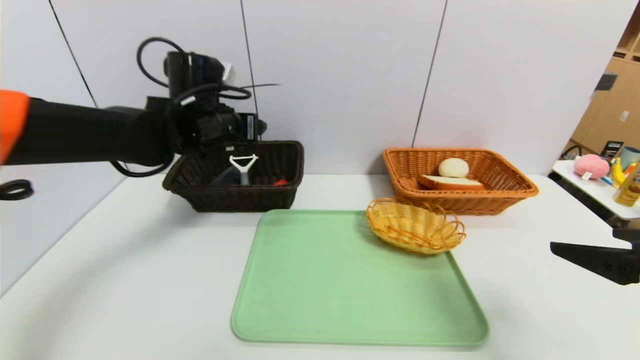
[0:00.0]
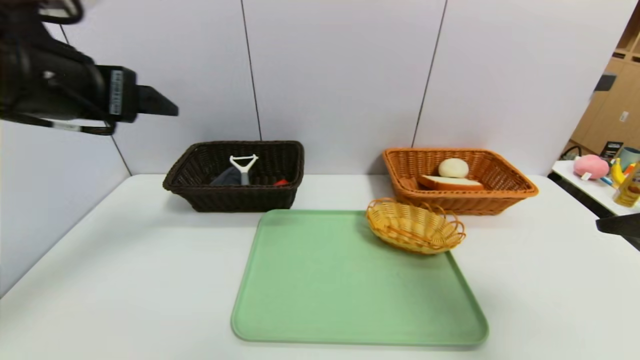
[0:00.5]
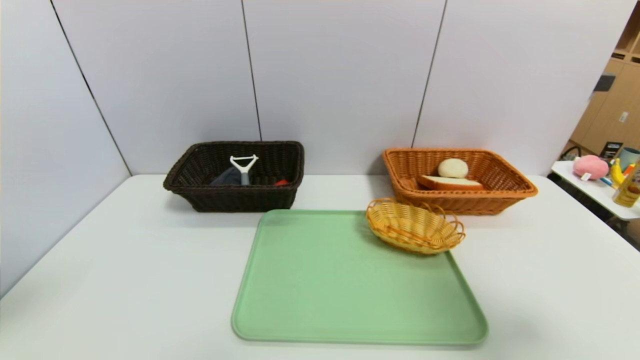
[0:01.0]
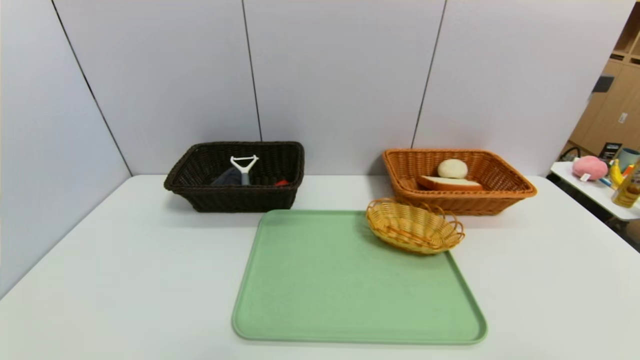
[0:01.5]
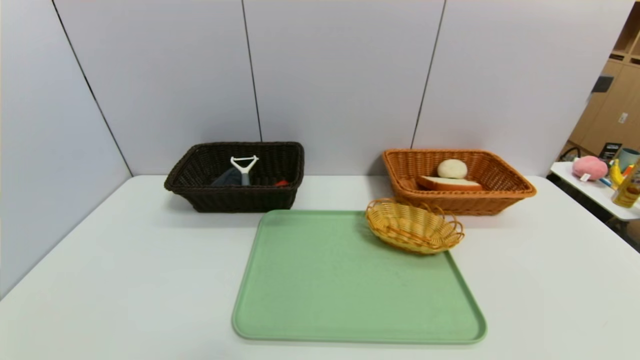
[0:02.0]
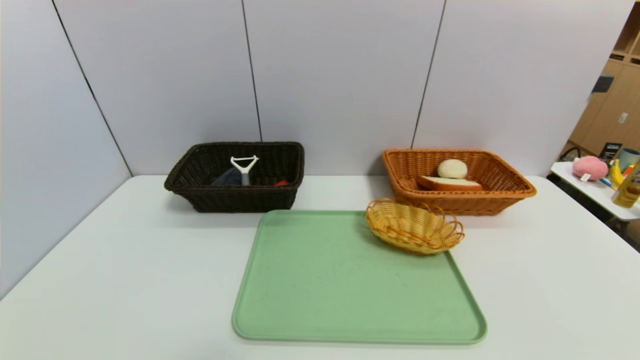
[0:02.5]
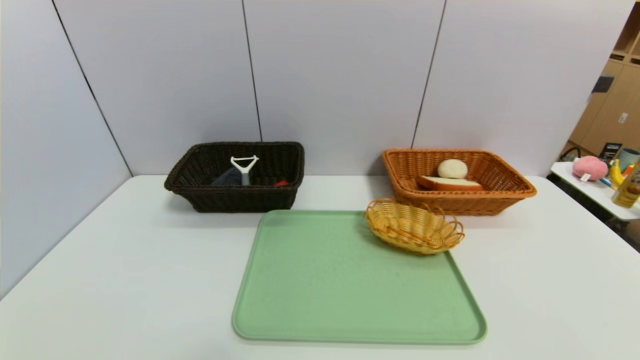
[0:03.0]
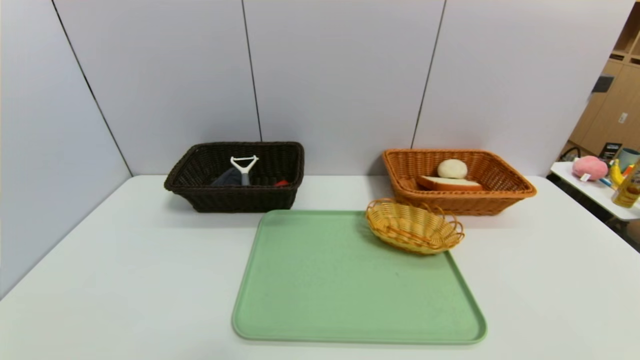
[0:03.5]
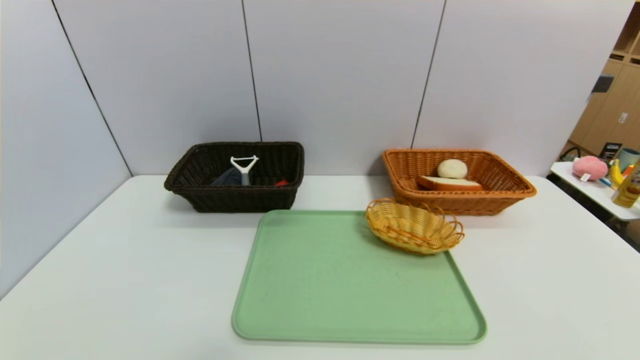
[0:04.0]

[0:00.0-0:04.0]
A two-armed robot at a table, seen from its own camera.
Task of the whole recording: place the food in the right basket with the right gripper, and place the non food items in the left basket with the left gripper.
0:00.0 to 0:02.0: The right gripper shifts about 20 cm backward, while the left gripper travels backward by some 50 cm.

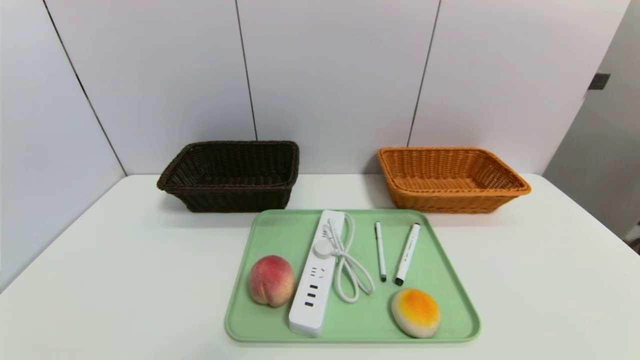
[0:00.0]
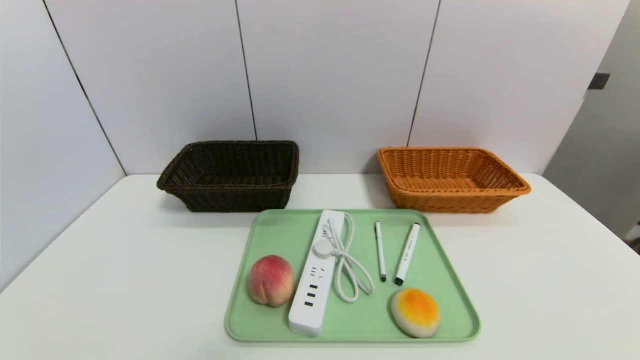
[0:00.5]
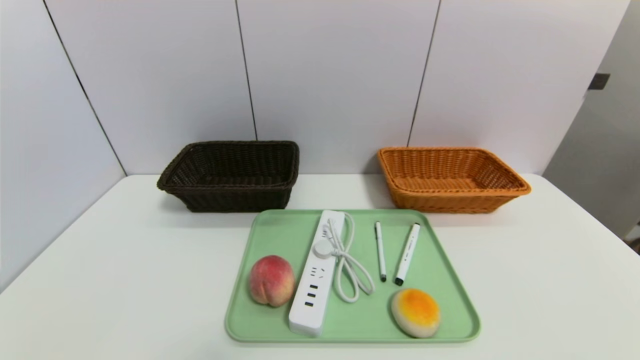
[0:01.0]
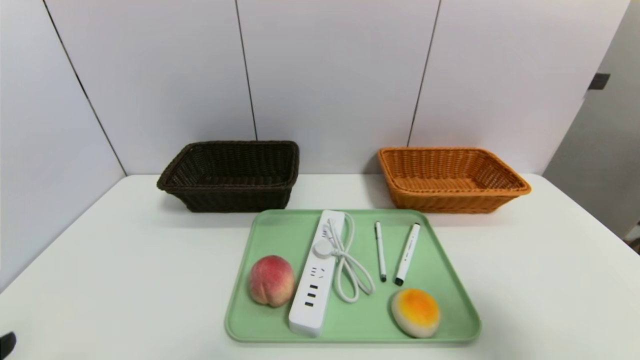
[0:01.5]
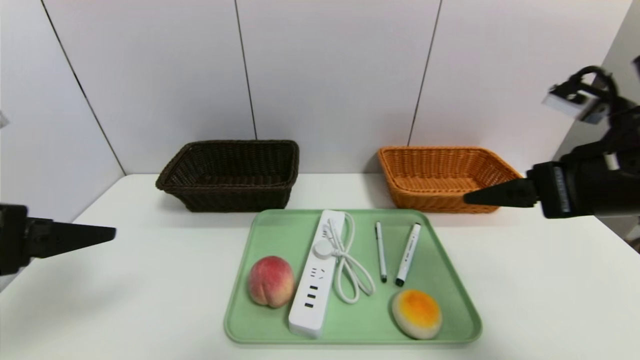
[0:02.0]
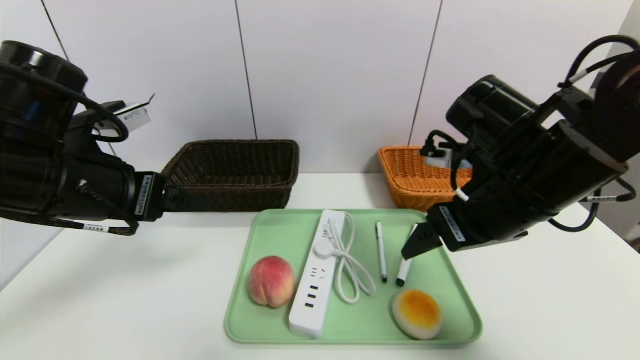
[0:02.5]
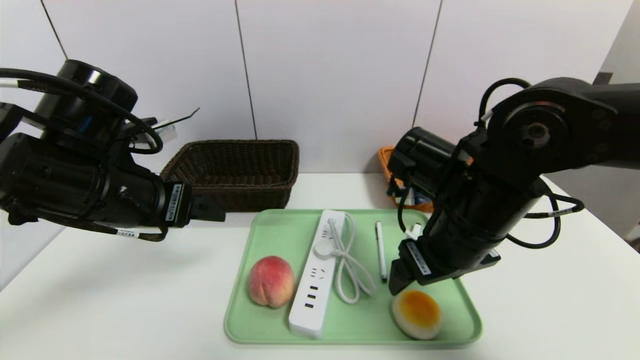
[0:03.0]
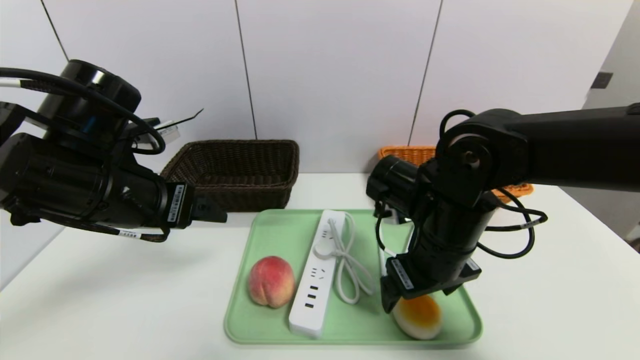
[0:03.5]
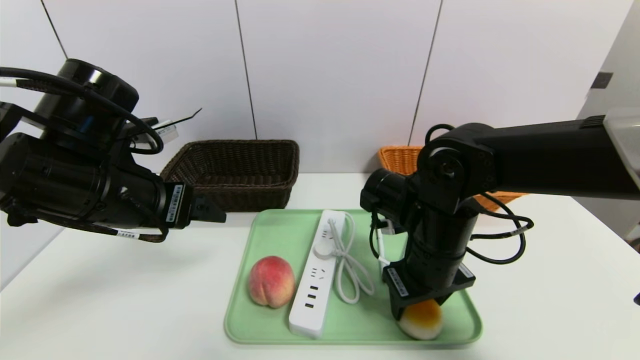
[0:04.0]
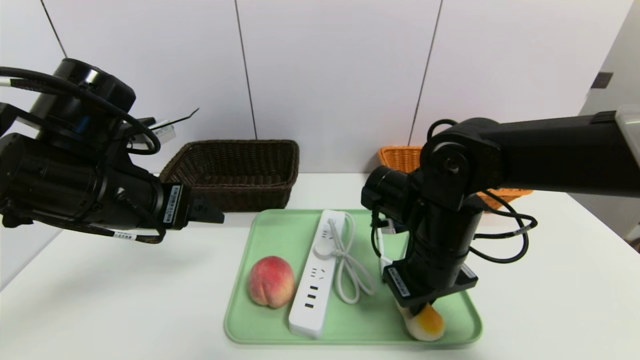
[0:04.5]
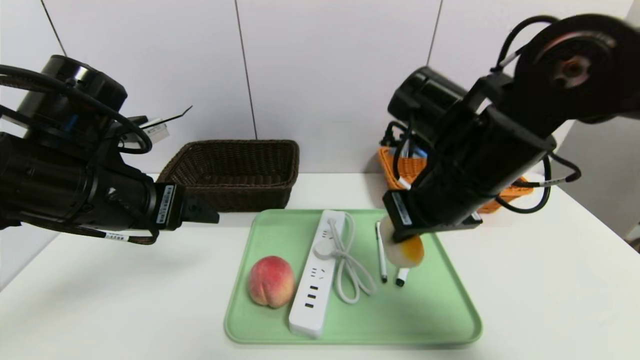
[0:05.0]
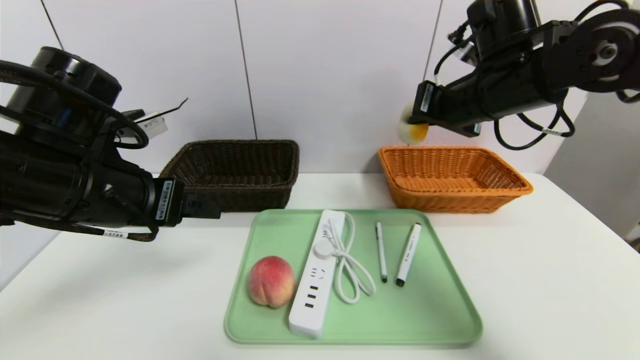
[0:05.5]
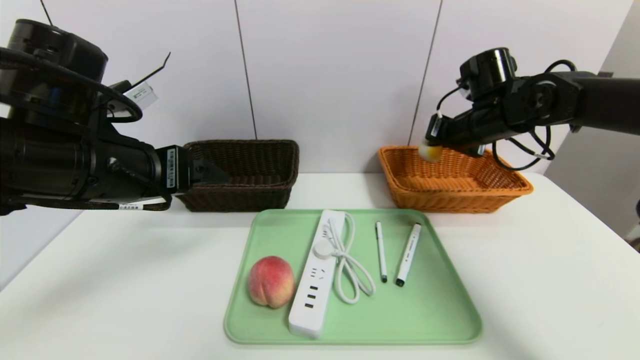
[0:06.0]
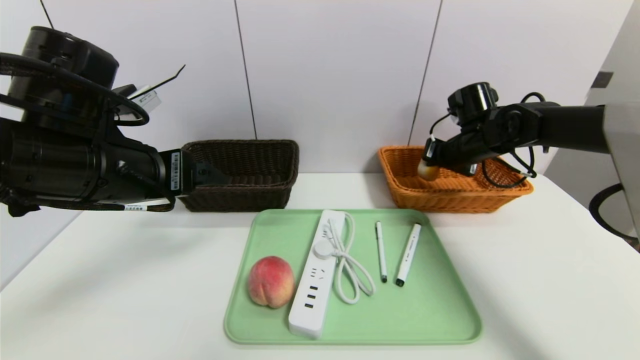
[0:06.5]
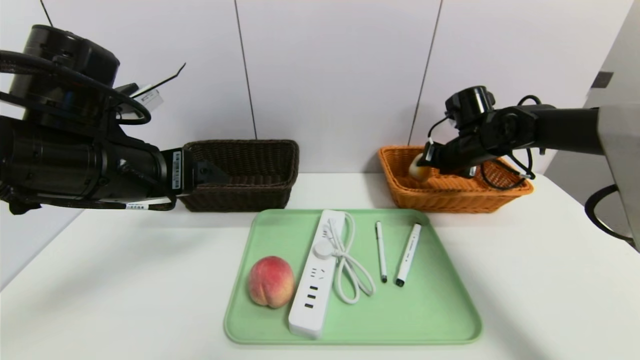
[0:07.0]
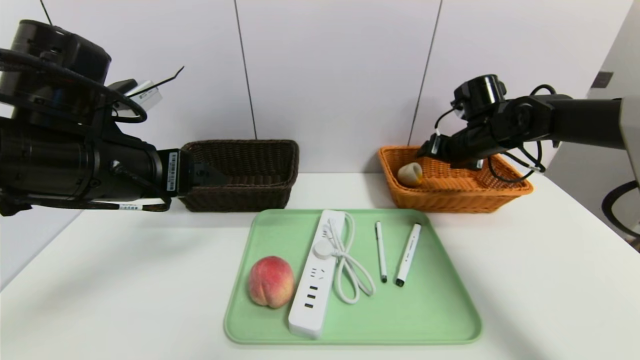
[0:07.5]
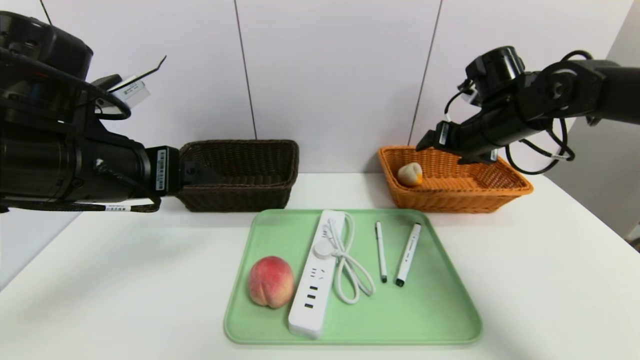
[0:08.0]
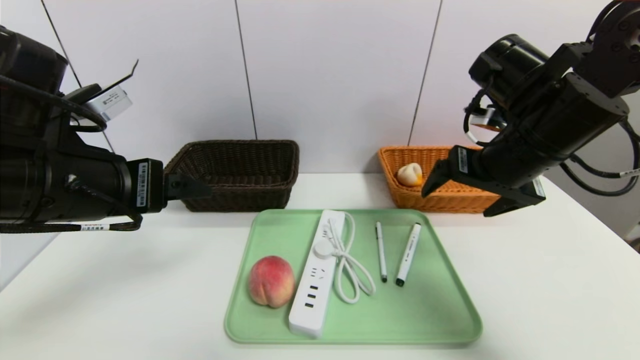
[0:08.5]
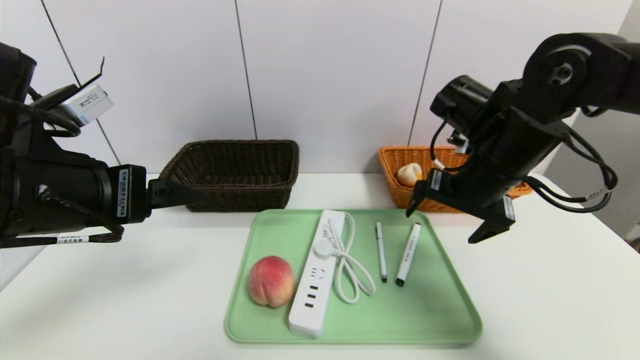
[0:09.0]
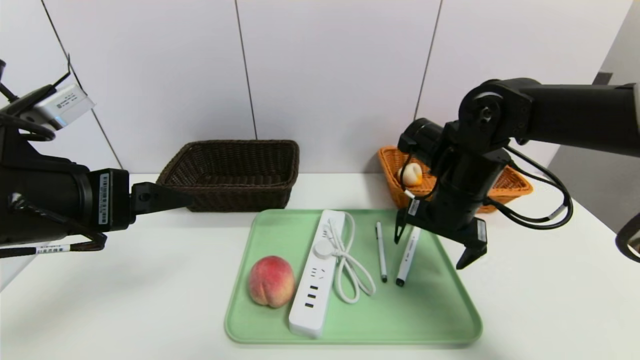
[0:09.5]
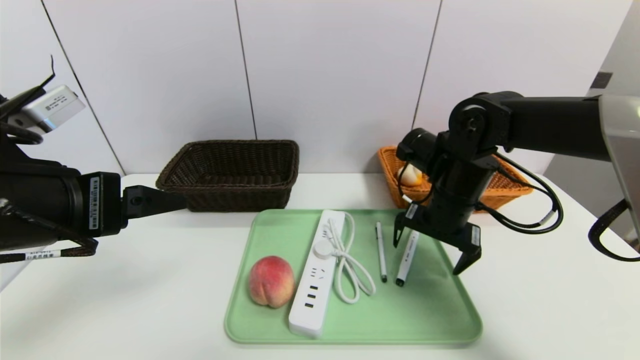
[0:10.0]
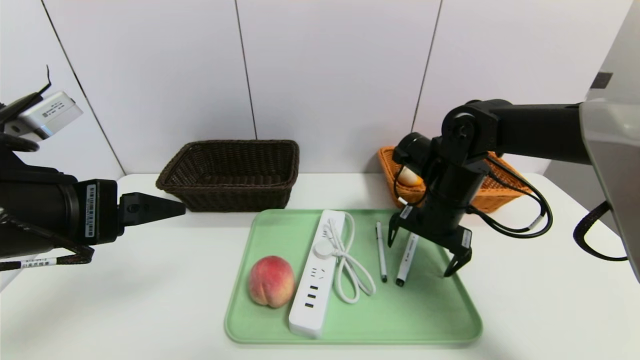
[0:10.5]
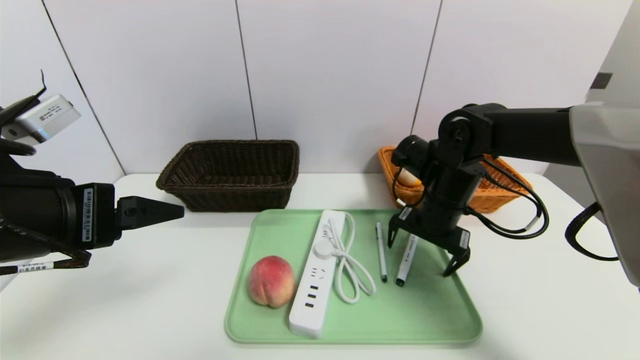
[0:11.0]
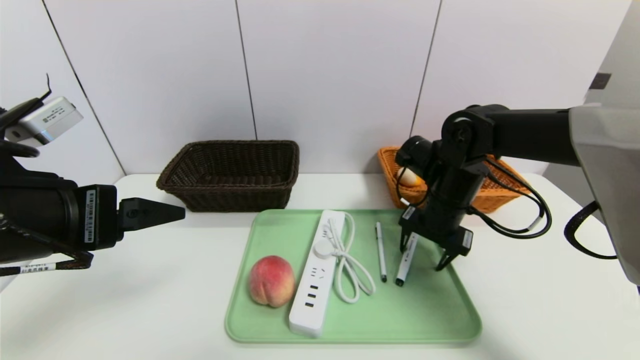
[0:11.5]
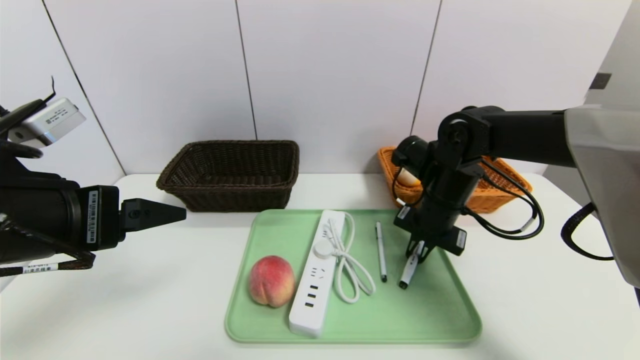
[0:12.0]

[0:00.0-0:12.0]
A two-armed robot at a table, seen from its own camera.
Task of the whole recording: place the food in the right basket with the right gripper, and place the non food items in the left basket with the left gripper.
Step, 0:00.0 to 0:07.0: Grasp the egg yolk pastry and put it in the right basket.
0:00.0 to 0:02.0: The left gripper heads upward and forward, covering about 25 cm. The right gripper is displaced forward and upward by roughly 30 cm.
0:02.0 to 0:04.0: The left gripper heads forward and to the right, covering some 10 cm, while the right gripper goes roughly 20 cm to the left, downward and forward, and closes up.
0:04.0 to 0:06.0: The right gripper heads forward, to the right and upward, covering about 20 cm, and closes up.
0:06.0 to 0:08.0: The right gripper opens.
0:08.0 to 0:10.0: The right gripper goes about 10 cm downward and to the left. Meanwhile the left gripper is displaced backward by approximately 5 cm.
0:10.0 to 0:12.0: The right gripper closes its fingers.

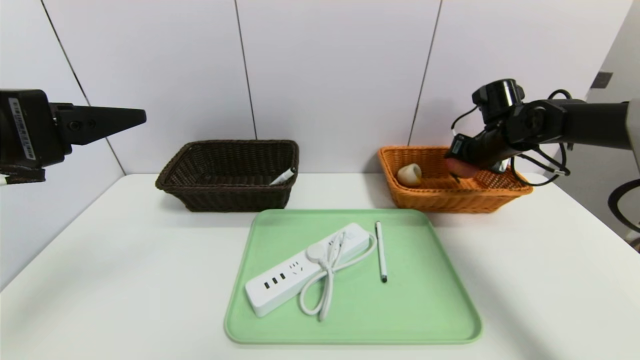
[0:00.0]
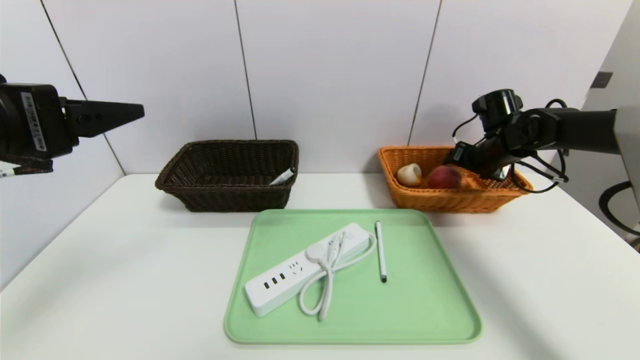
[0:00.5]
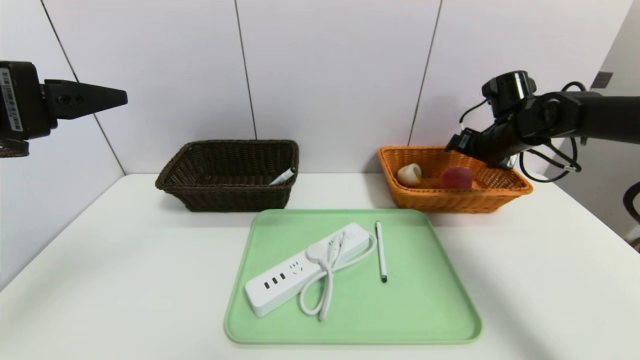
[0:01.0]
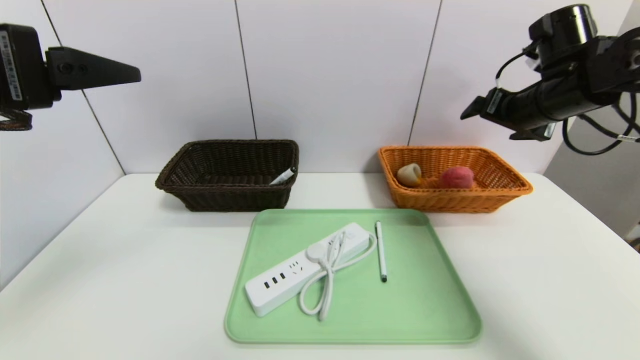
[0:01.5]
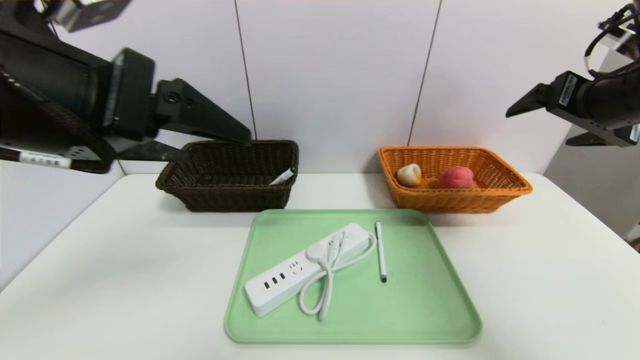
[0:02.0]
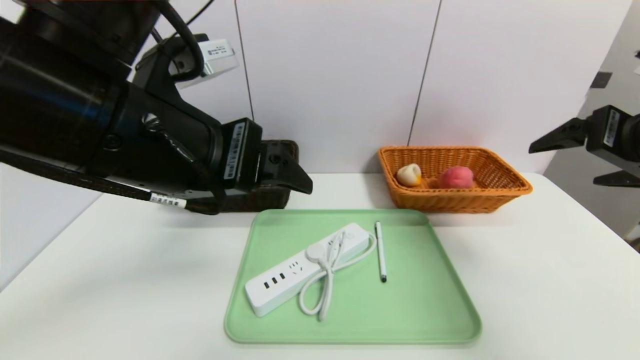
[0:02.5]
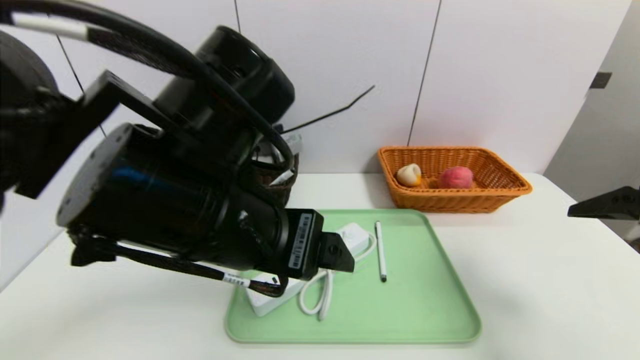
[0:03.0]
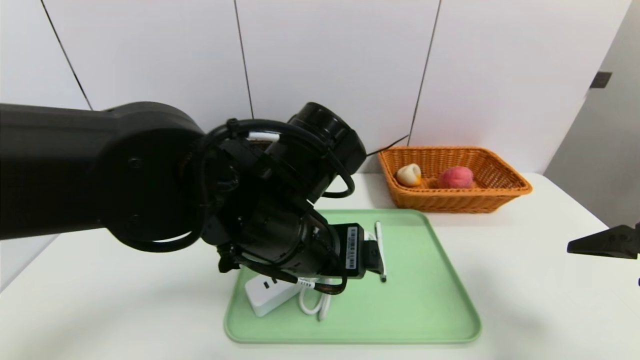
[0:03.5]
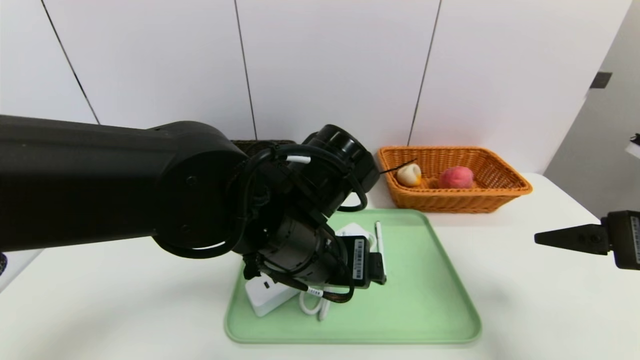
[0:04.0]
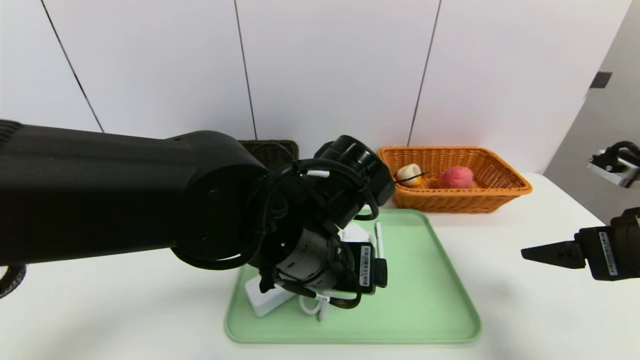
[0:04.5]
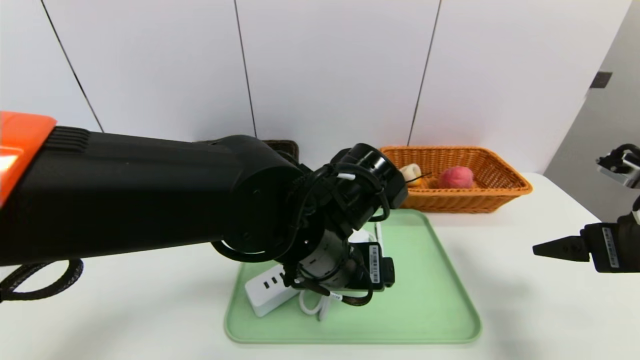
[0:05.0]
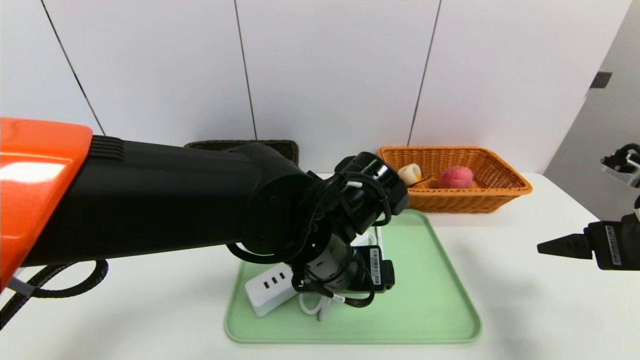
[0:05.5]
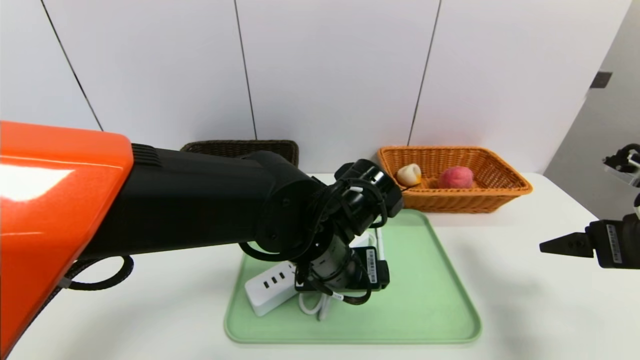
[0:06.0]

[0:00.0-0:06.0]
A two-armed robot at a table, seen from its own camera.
Task of the whole recording: place the food in the right basket with the right gripper, and place the non food items in the left basket with the left gripper.
0:00.0 to 0:02.0: The left gripper moves to the right, roughly 5 cm. Meanwhile the right gripper is displaced backward and upward by about 25 cm, and opens.
0:02.0 to 0:04.0: The right gripper is displaced backward and downward by about 15 cm. The left gripper travels to the right and downward by about 20 cm.
0:04.0 to 0:06.0: The right gripper changes place by about 5 cm; the left gripper ends up approximately 5 cm from where it was.
